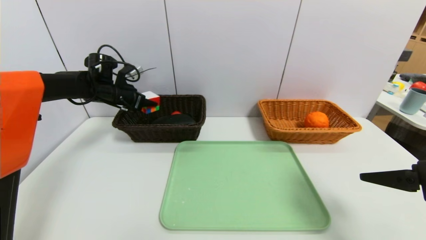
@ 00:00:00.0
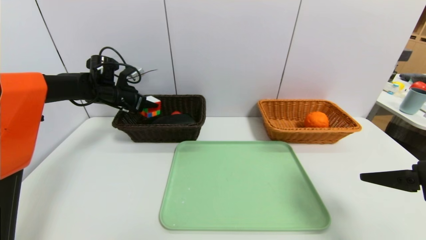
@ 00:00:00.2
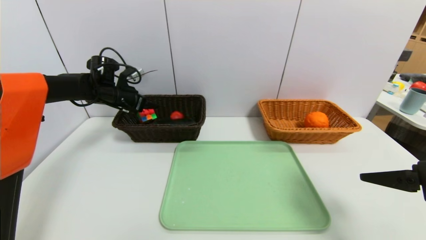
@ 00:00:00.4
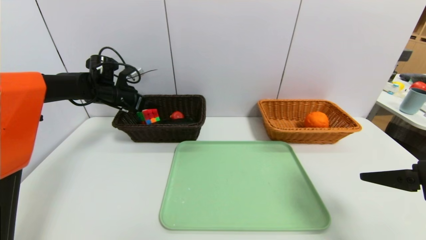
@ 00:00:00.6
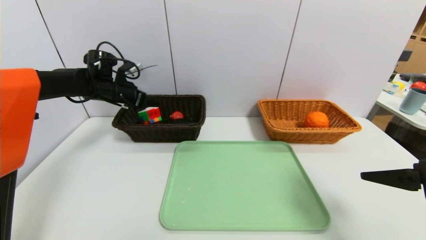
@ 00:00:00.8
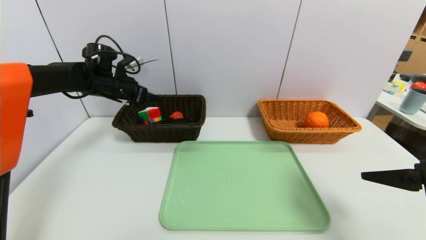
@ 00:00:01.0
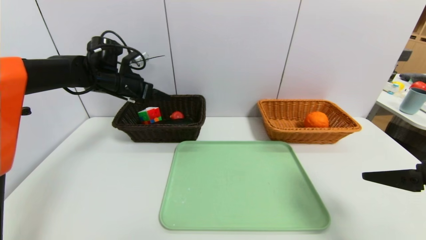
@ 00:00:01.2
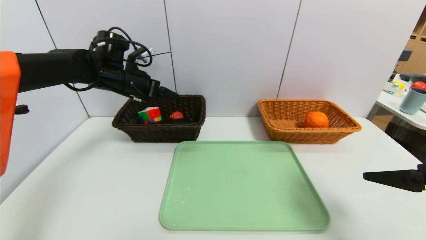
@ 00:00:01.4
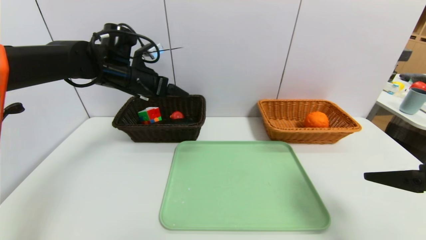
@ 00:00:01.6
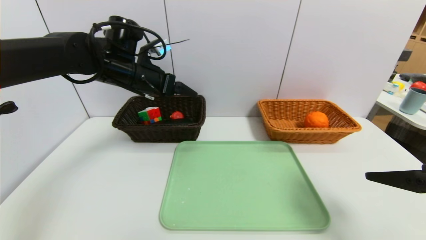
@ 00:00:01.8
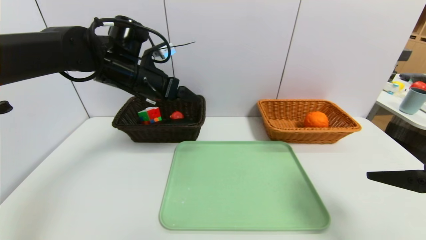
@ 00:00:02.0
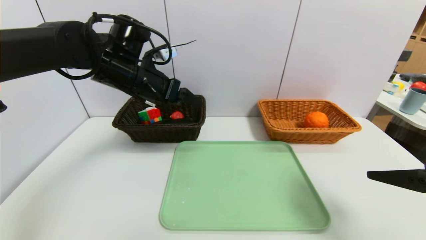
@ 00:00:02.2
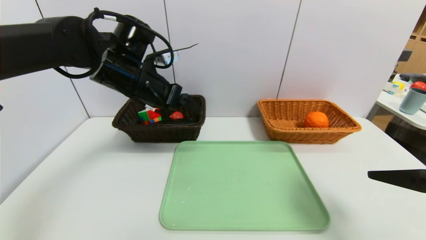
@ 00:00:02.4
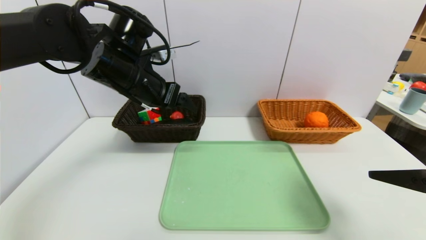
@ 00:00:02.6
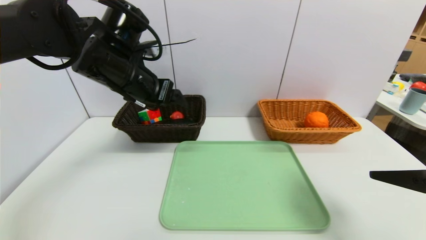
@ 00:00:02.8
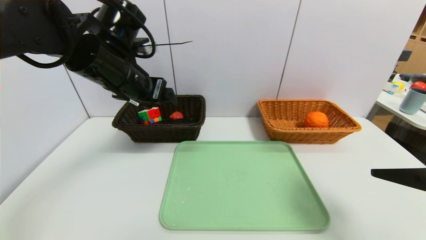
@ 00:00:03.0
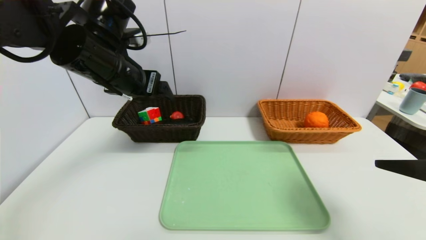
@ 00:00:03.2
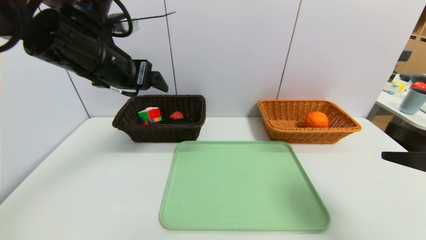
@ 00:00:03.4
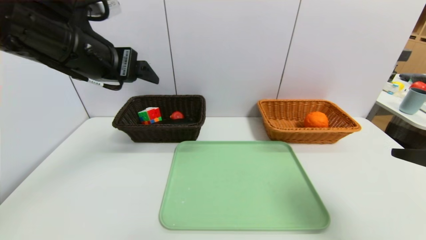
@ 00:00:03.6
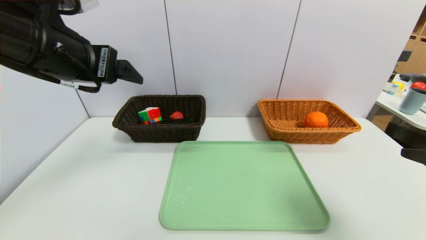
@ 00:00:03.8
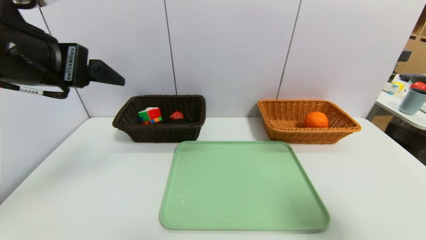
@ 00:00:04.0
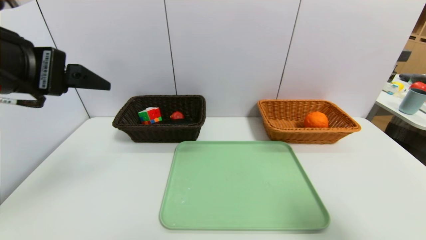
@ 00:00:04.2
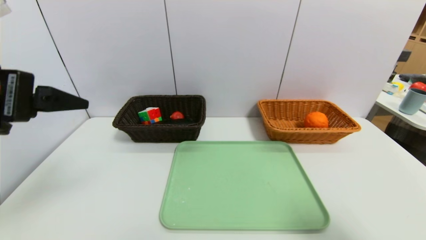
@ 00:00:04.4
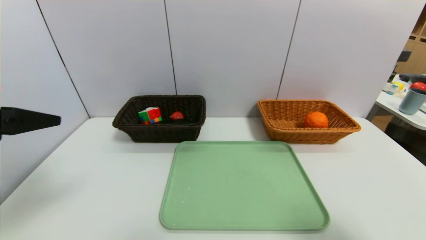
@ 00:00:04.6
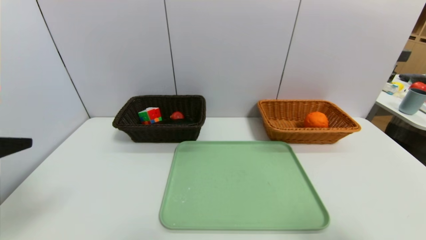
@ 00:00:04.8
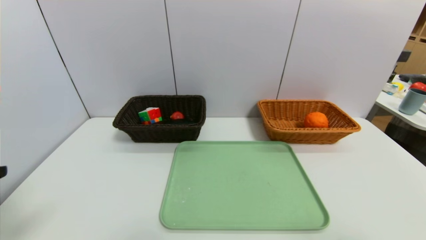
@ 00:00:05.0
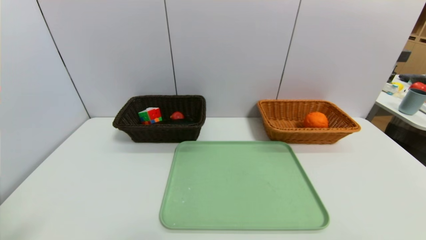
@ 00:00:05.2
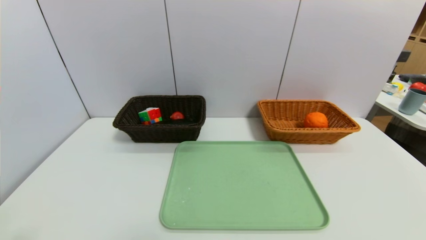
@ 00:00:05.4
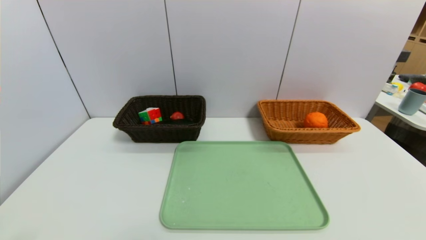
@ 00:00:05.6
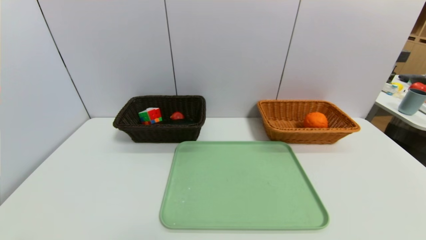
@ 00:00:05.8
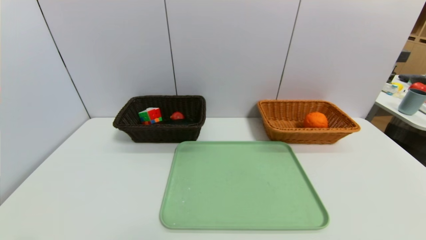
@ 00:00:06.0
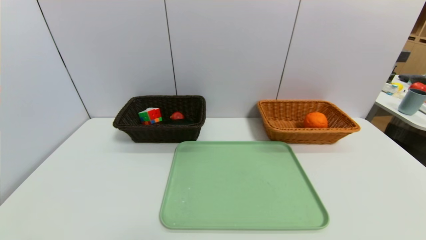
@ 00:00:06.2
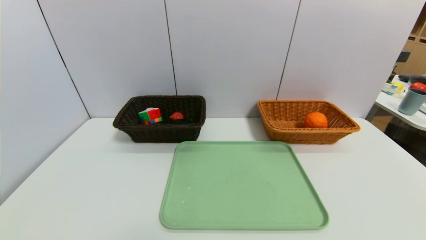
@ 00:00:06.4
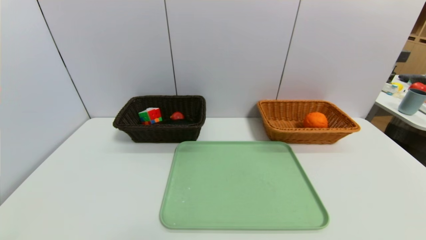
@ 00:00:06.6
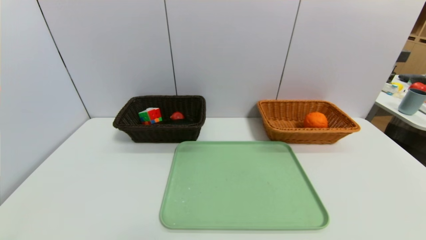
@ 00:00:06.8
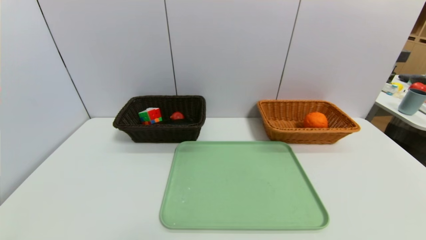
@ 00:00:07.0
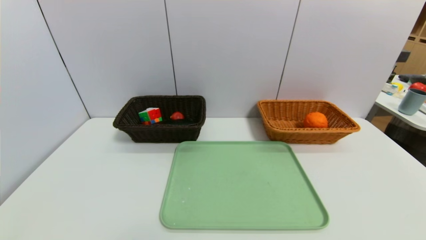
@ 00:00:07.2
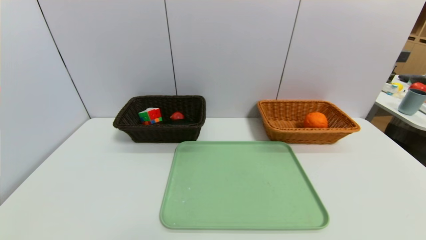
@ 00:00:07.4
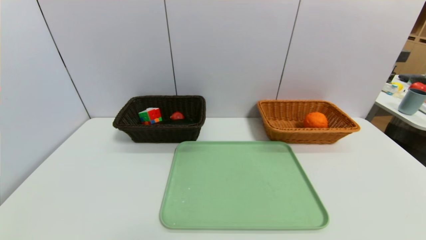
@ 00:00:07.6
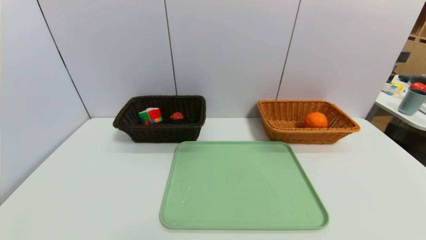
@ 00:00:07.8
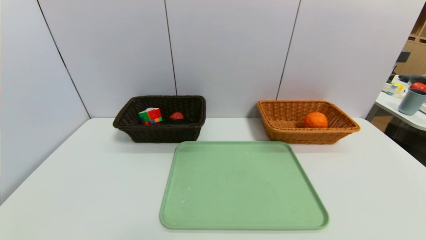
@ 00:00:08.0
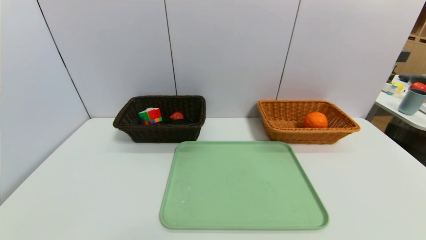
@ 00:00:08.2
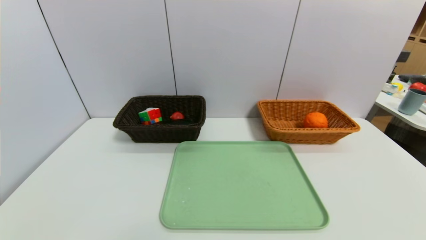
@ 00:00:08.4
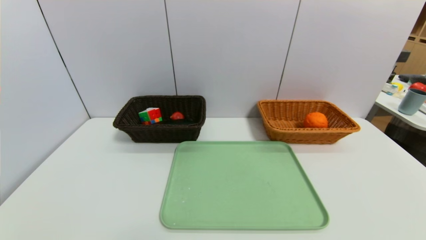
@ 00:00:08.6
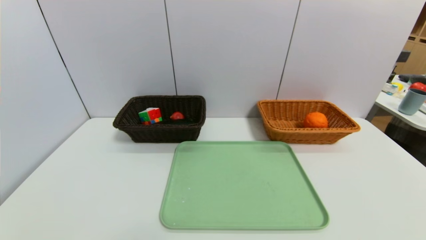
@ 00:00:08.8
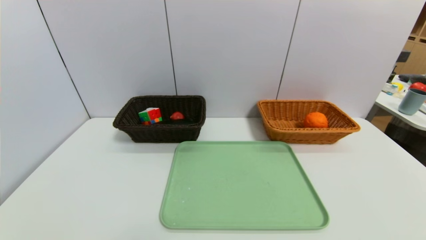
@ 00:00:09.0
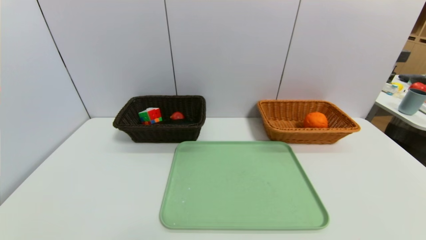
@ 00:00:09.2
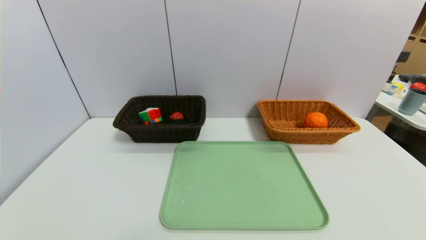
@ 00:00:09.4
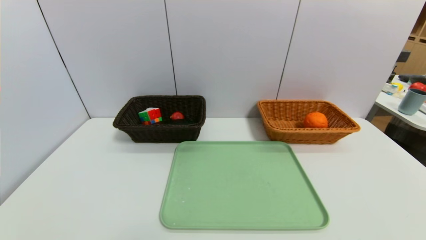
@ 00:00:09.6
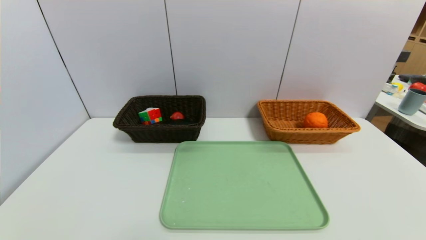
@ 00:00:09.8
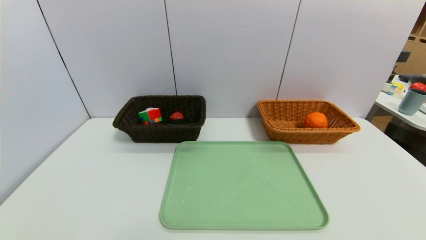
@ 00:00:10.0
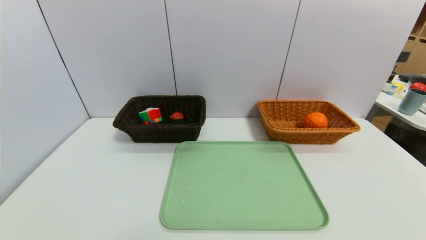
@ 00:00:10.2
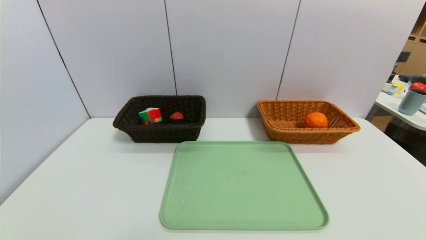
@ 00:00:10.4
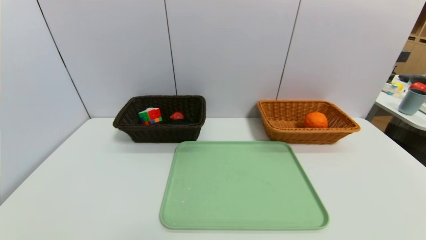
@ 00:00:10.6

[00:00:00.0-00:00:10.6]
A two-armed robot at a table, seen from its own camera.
Task of the whole recording: place the food in the right basket with the right gripper, and place the non food items in the left basket with the left gripper.
00:00:00.0 to 00:00:01.6: The left gripper goes about 15 cm to the right, backward and upward, and opens its fingers.
00:00:01.6 to 00:00:03.0: The left gripper heads backward, covering roughly 10 cm.
00:00:03.0 to 00:00:04.6: The right gripper moves backward, roughly 10 cm. Meanwhile the left gripper moves backward and to the left, about 25 cm.
00:00:04.6 to 00:00:06.0: The right gripper heads backward and downward, covering some 10 cm; the left gripper heads downward and backward, covering roughly 20 cm.
